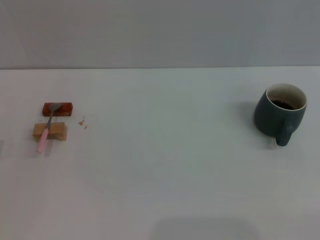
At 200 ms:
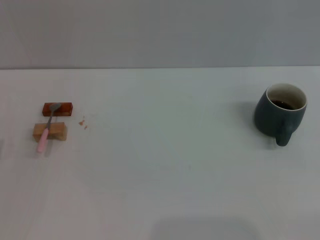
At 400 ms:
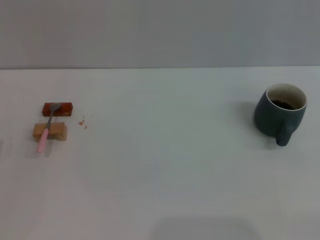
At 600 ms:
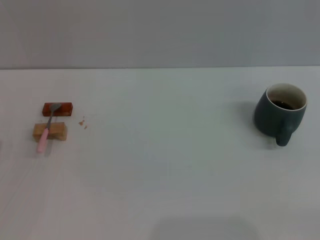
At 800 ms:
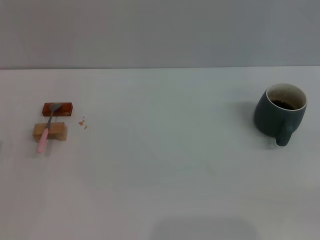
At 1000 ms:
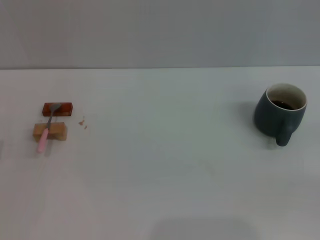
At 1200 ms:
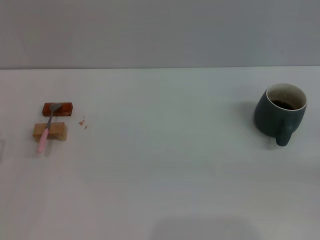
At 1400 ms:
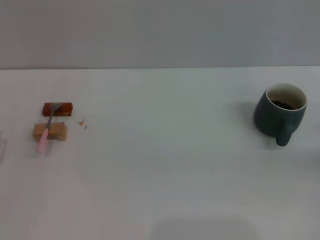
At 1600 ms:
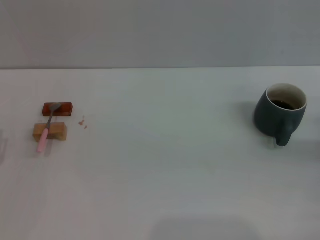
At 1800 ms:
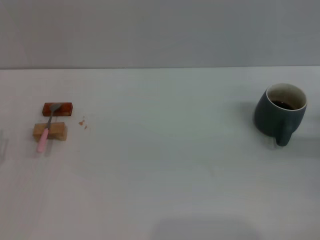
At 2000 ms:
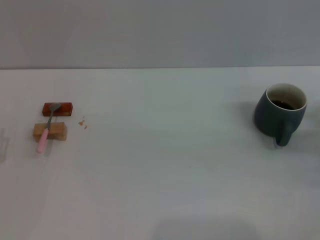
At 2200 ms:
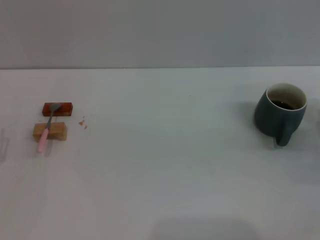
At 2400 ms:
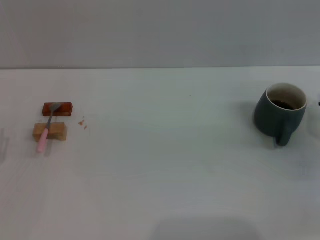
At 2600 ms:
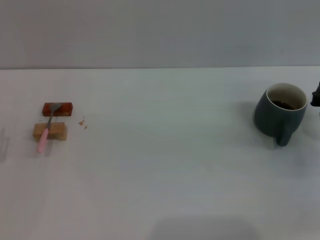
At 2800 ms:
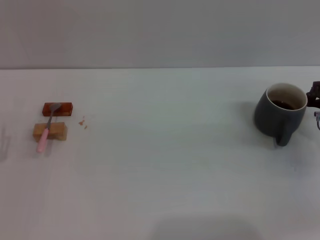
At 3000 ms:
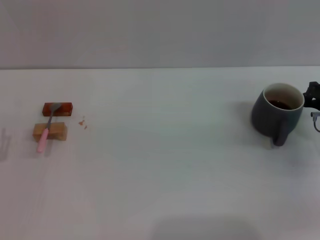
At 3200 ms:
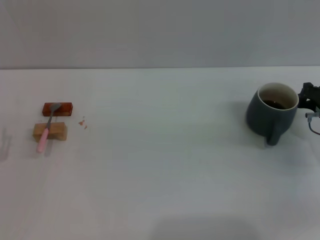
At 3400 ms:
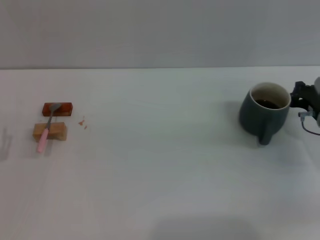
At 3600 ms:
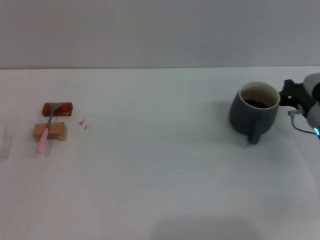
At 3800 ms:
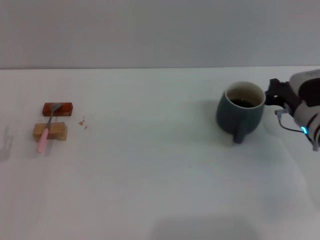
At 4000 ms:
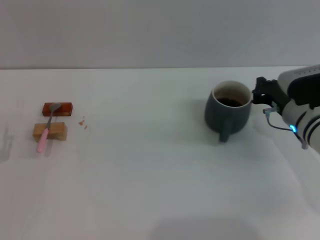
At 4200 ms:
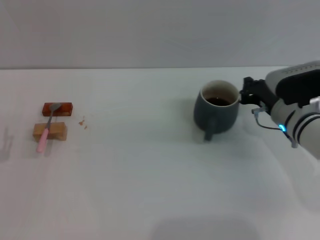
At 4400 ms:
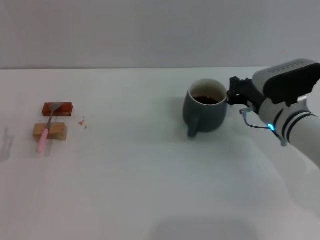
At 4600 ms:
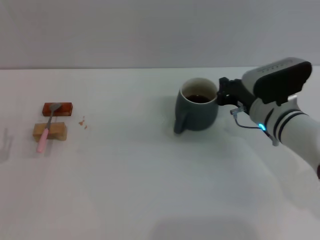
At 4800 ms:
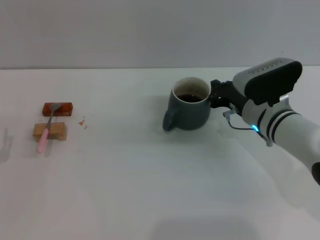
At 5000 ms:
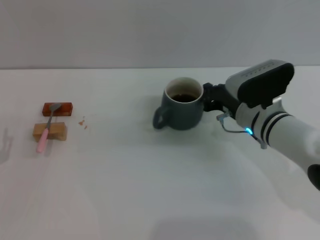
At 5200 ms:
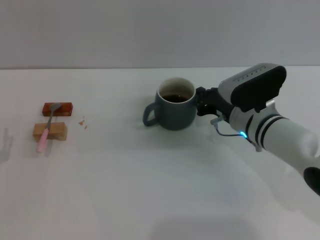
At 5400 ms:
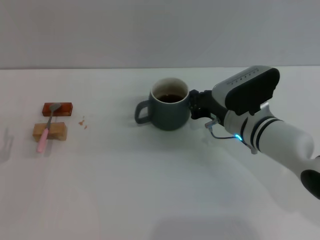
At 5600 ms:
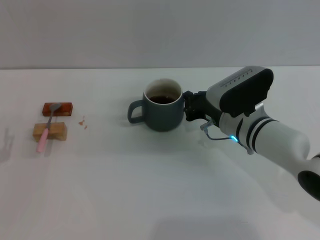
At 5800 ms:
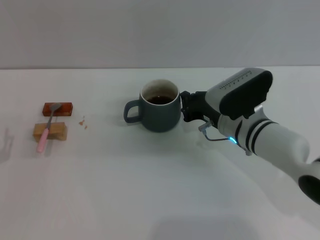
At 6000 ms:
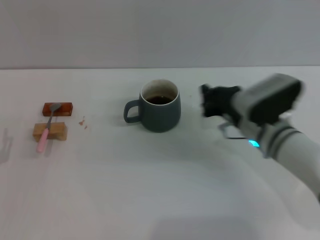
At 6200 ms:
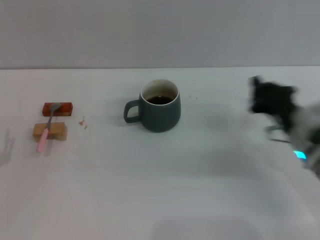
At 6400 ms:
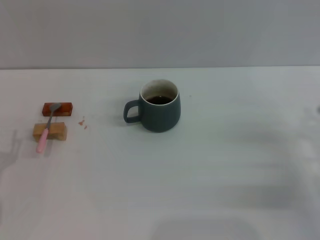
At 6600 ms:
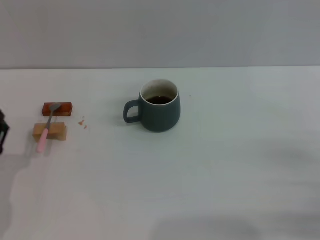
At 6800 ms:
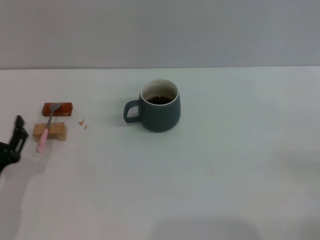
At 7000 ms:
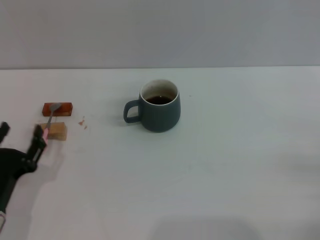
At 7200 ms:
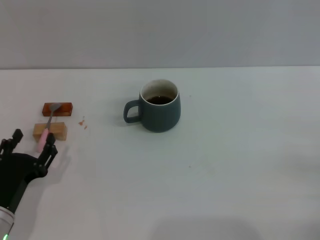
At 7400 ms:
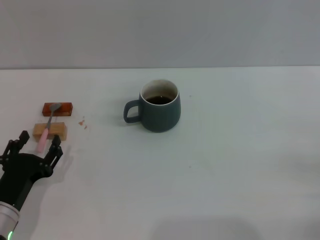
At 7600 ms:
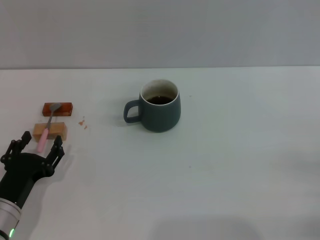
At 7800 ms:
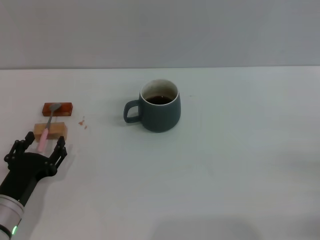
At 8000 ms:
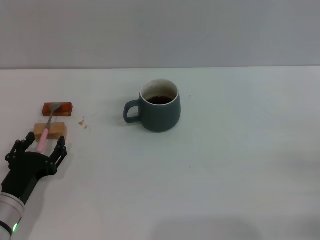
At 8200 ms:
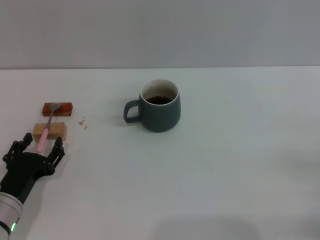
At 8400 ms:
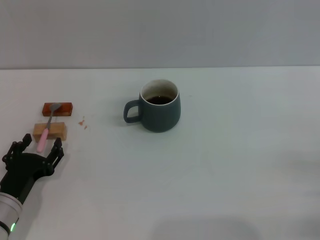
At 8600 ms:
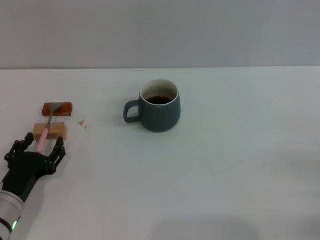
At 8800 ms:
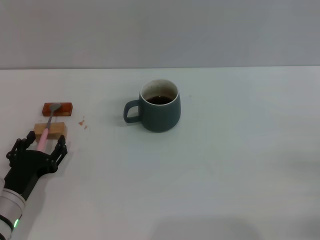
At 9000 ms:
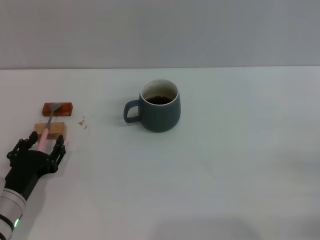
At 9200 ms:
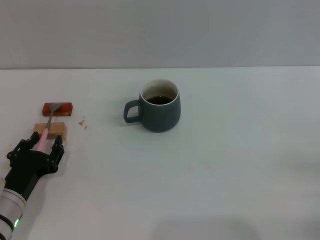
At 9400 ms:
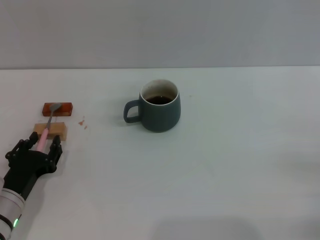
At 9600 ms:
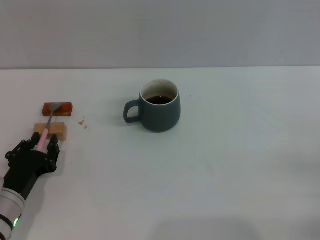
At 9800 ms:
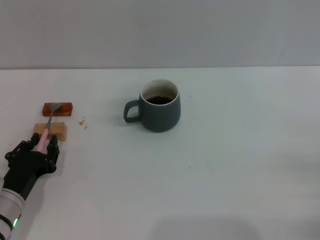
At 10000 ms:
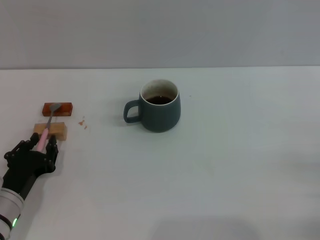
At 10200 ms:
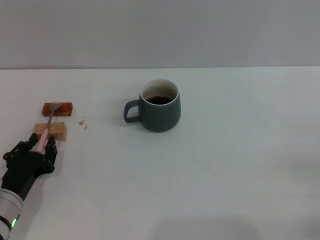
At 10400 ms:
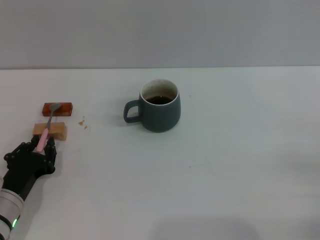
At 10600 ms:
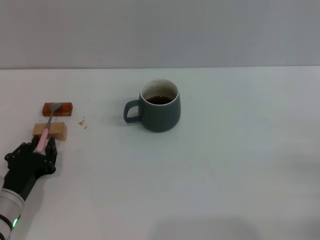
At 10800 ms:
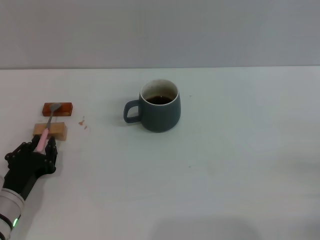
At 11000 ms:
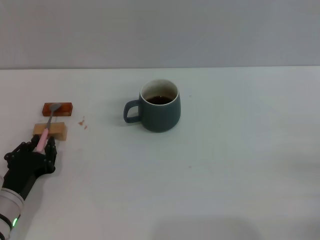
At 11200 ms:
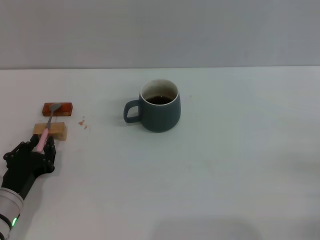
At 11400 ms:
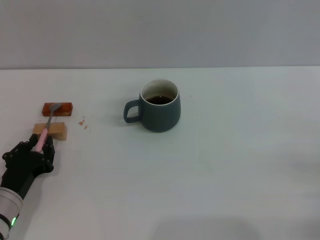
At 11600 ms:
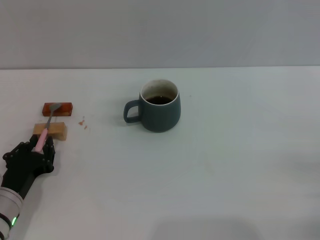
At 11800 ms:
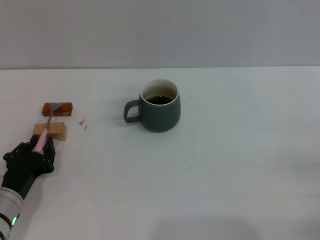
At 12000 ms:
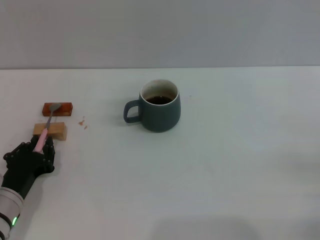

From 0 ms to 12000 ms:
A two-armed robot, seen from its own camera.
Task of the whole recording: Move the grey cup to the center, lift the pink spoon, stir it three times in the cup, and put the spoon into the cup.
Step, from 0 ms to 5800 ms: Move the cup with coffee to the center of view with the right gripper.
From 0 ms to 1600 ms: The right gripper moves forward, roughly 15 cm.
From 1600 ms to 3000 ms: The right gripper is displaced to the left by approximately 10 cm.
From 3000 ms to 4400 ms: The right gripper shifts approximately 10 cm to the left.
From 6000 ms to 7600 ms: The left gripper heads to the right, covering roughly 5 cm, while the right gripper travels to the right and backward by some 25 cm.
From 7600 ms to 9000 ms: The grippers move only a little.
From 9000 ms to 12000 ms: Both grippers stay about where they are.

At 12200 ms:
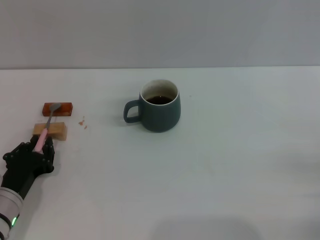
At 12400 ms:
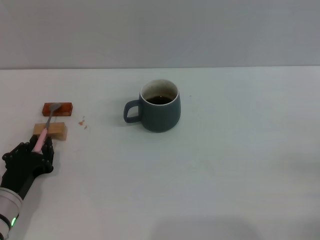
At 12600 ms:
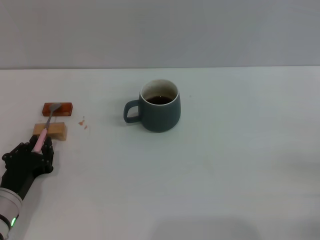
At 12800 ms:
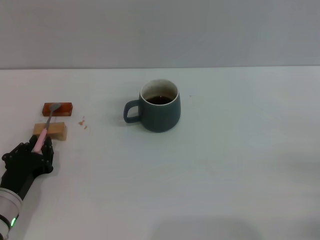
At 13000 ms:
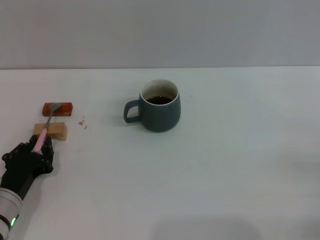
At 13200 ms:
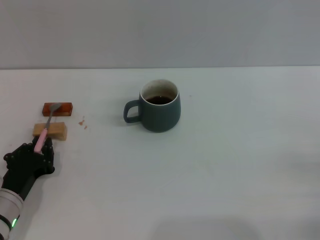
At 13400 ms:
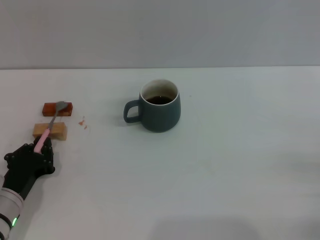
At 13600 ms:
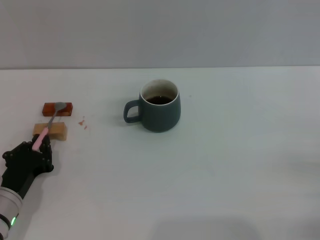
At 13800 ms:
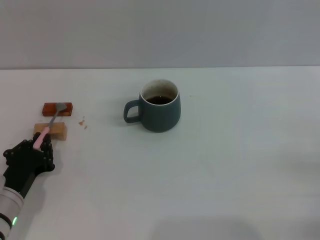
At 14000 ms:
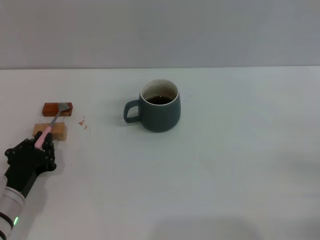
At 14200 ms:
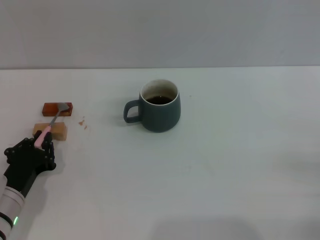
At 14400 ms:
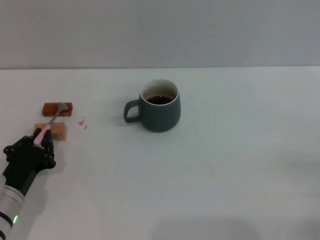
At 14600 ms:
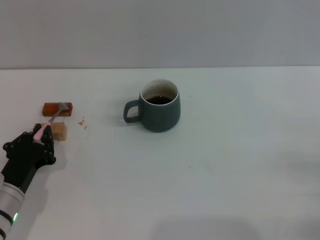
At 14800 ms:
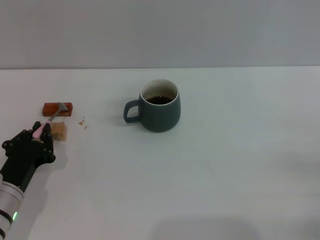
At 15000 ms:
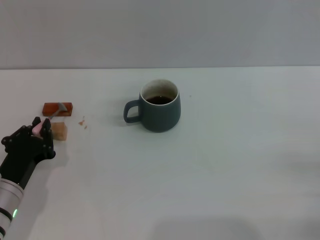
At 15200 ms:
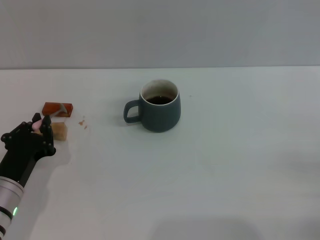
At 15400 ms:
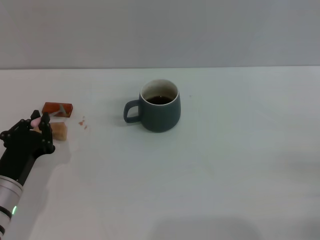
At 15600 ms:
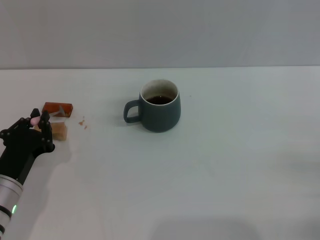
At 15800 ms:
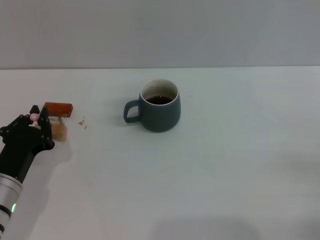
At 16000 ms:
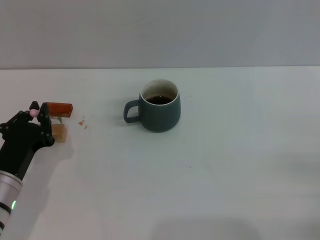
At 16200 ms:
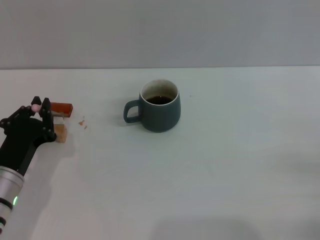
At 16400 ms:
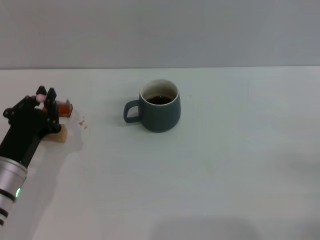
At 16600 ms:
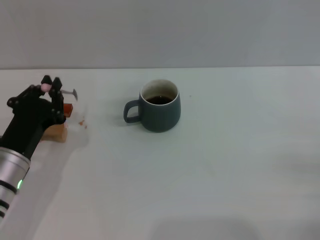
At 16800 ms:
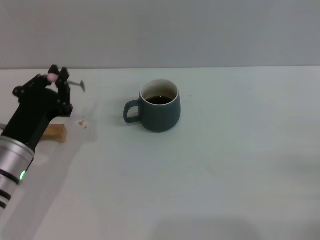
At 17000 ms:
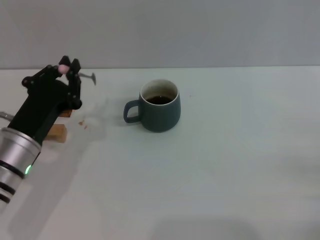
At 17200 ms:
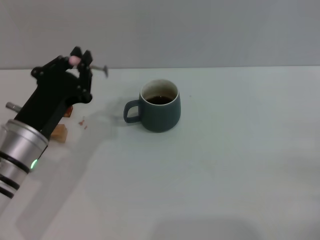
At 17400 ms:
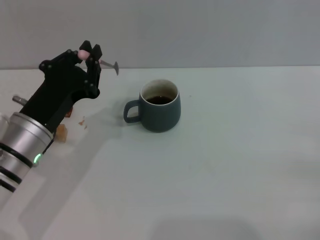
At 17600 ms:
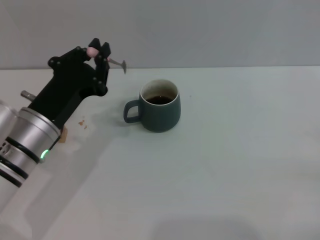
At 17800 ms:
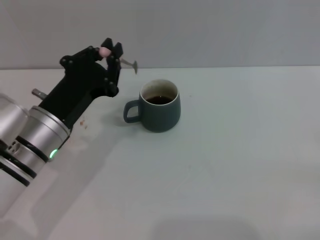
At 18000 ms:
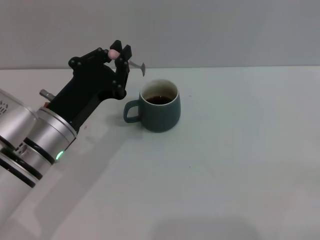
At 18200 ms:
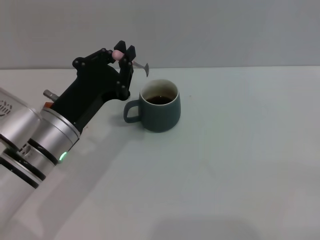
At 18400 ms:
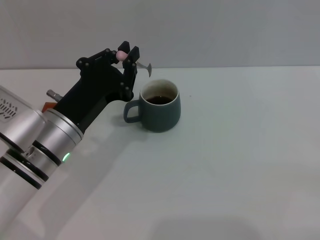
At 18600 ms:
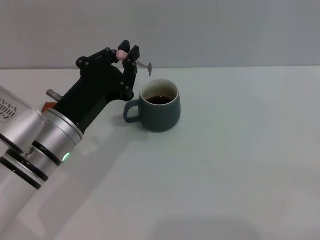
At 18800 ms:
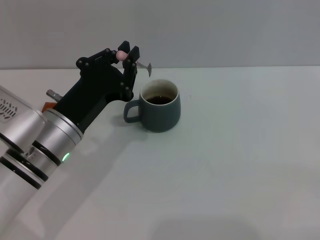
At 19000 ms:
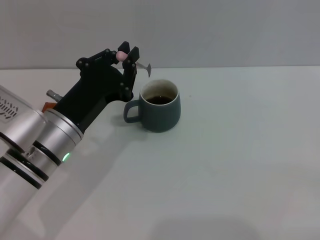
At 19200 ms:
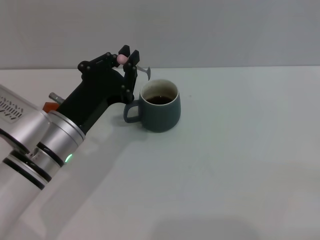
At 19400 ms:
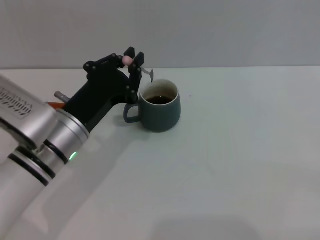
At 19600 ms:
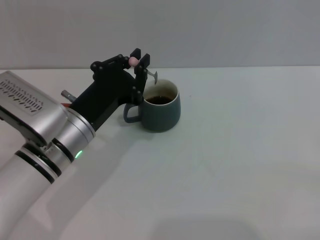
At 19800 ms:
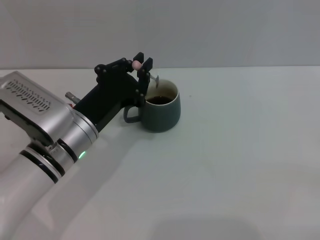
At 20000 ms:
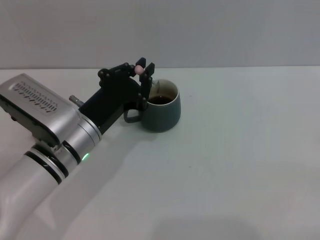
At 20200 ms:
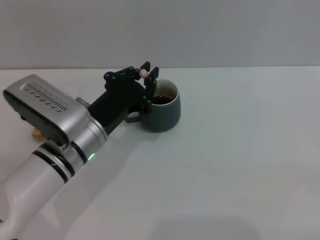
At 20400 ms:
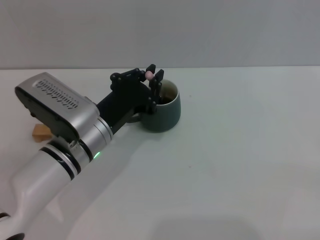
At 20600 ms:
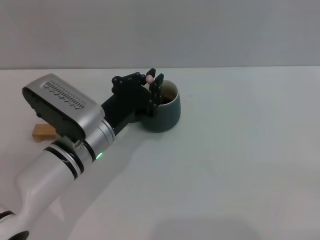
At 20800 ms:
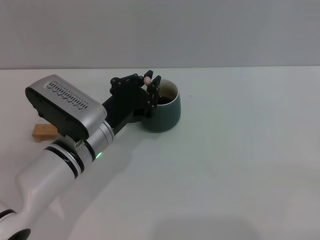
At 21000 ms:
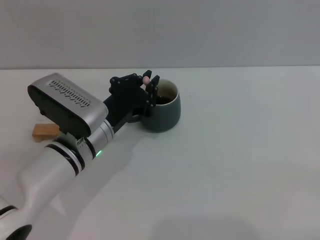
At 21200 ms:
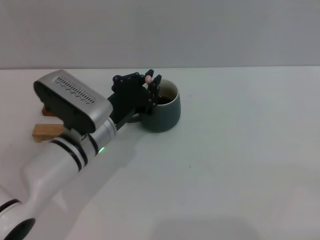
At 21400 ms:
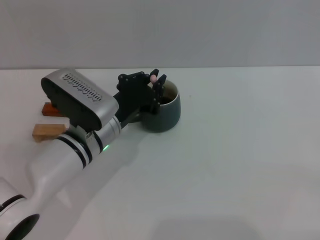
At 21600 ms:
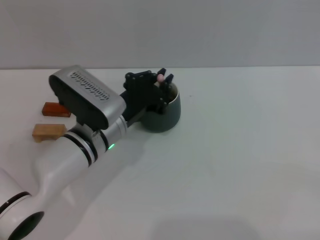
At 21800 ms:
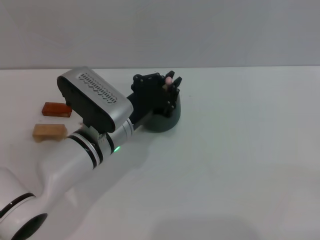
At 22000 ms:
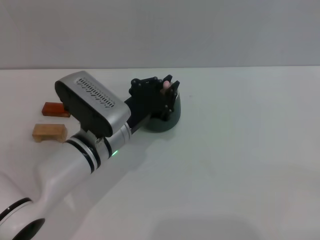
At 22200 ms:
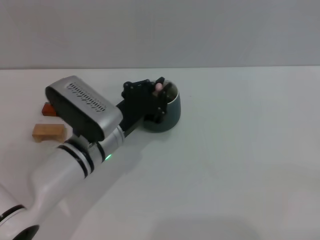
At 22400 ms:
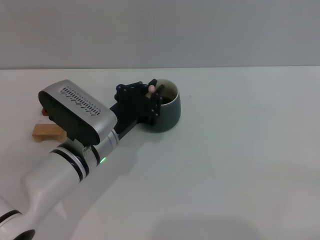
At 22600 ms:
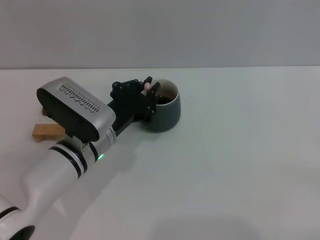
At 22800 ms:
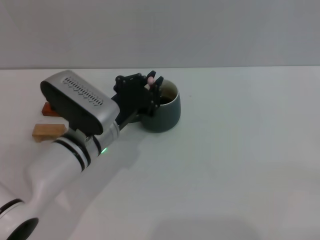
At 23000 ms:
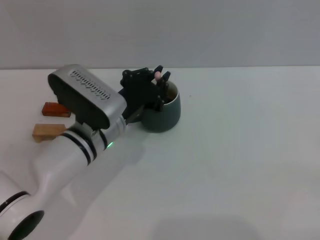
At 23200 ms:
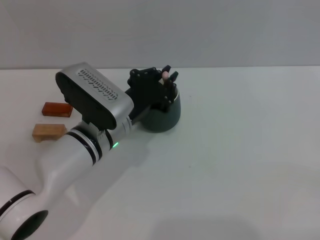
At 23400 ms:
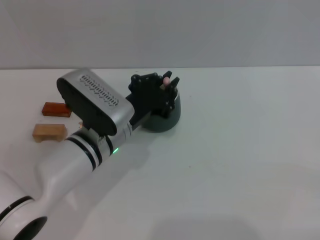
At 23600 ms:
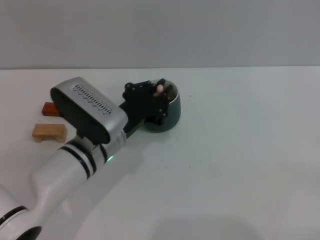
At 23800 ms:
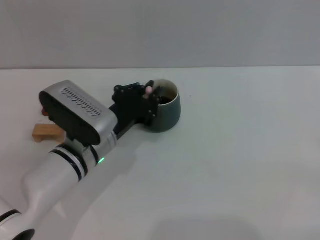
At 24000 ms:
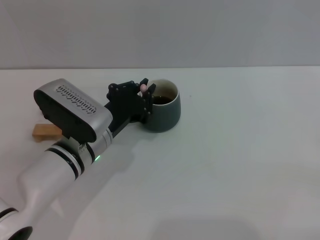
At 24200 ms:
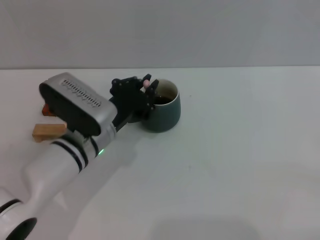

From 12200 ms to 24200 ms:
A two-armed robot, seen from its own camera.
Task of the whole recording: Move the grey cup to the center, lift the pink spoon, stir it three times in the cup, and put the spoon into the cup.
Step, from 12200 ms to 16600 ms: Pick up the spoon with the left gripper.
From 12200 ms to 13800 ms: Both grippers stay put.
From 13800 ms to 15200 ms: The grippers move only a little.
From 15200 ms to 16600 ms: The grippers make only small movements.
From 16600 ms to 18200 ms: The left gripper is displaced to the right and upward by about 10 cm.
From 18200 ms to 19800 ms: The grippers stay close to where they were, moving slightly.
From 19800 ms to 21200 ms: The grippers make only small movements.
From 21200 ms to 24200 ms: The grippers stay close to where they were, moving slightly.
